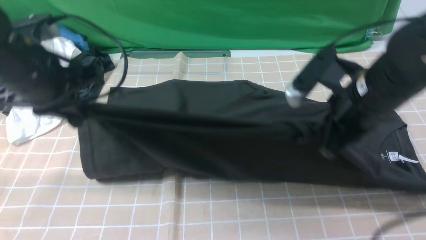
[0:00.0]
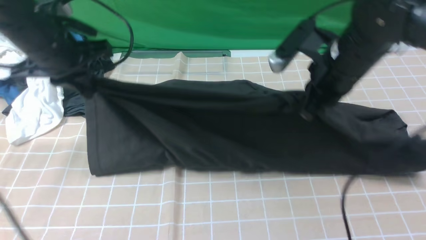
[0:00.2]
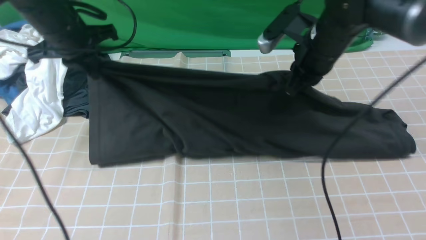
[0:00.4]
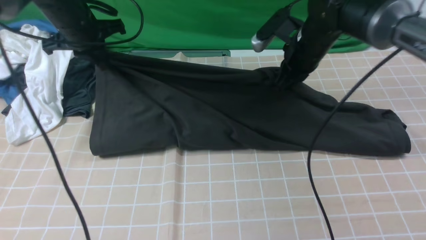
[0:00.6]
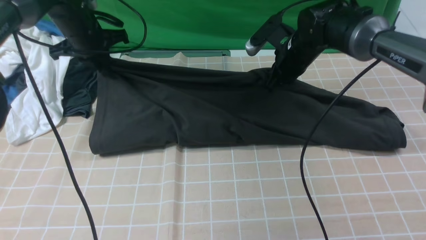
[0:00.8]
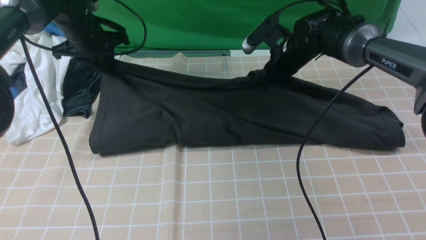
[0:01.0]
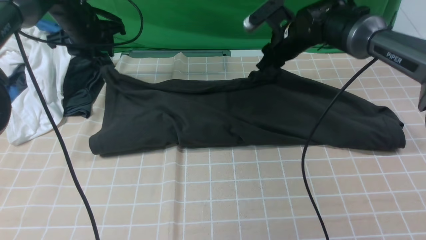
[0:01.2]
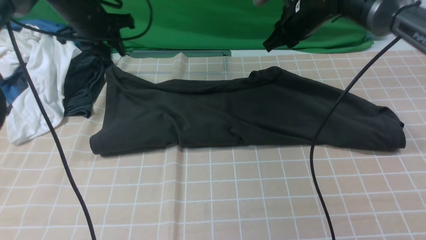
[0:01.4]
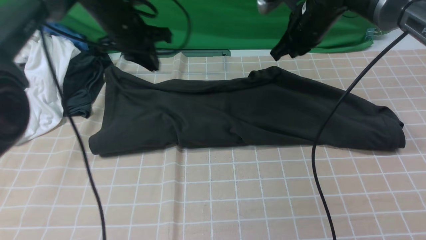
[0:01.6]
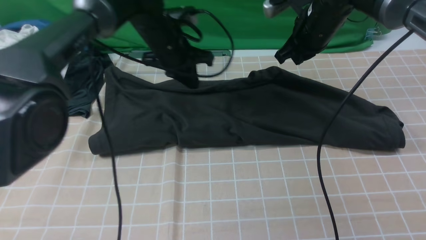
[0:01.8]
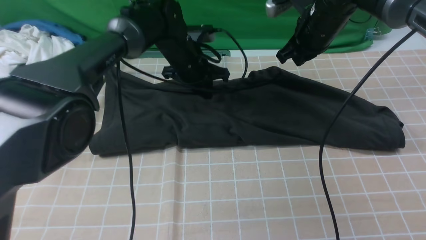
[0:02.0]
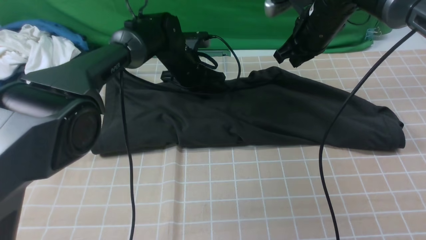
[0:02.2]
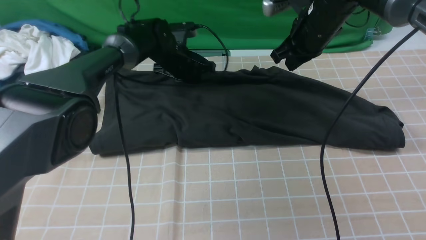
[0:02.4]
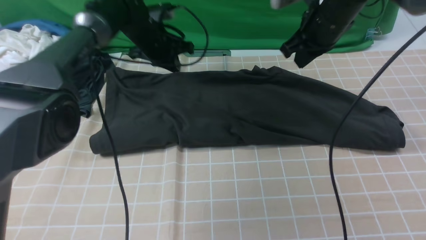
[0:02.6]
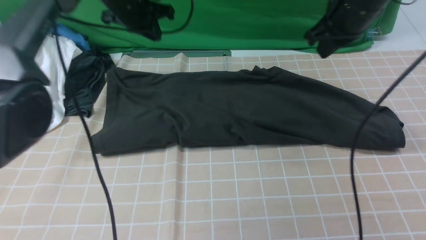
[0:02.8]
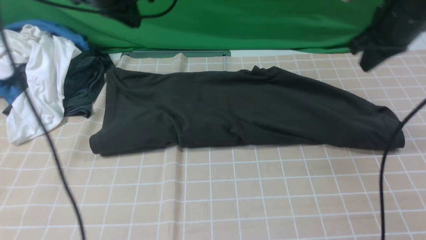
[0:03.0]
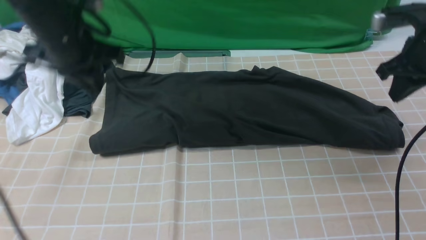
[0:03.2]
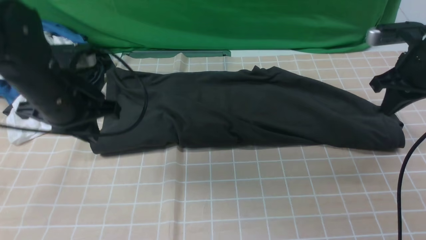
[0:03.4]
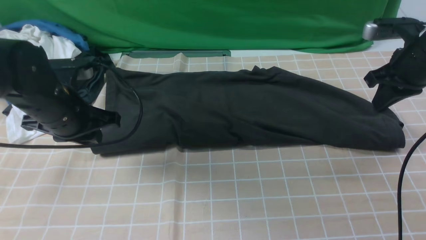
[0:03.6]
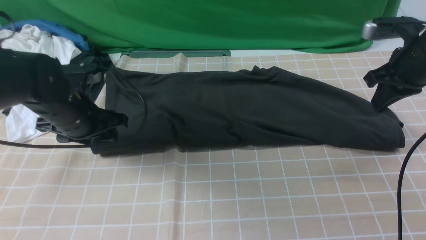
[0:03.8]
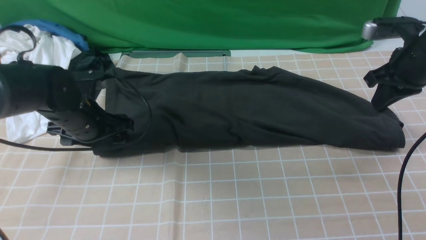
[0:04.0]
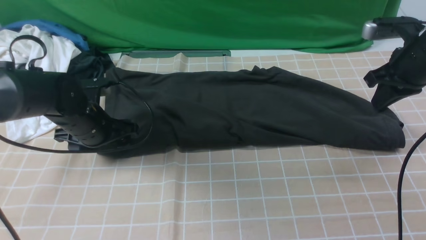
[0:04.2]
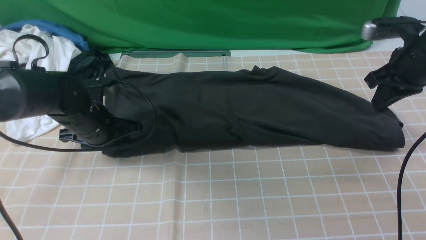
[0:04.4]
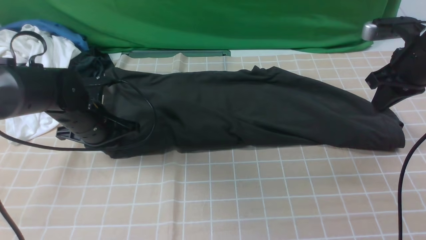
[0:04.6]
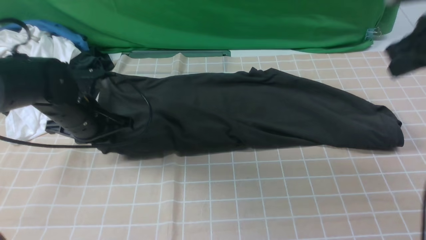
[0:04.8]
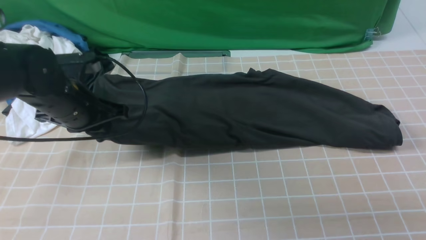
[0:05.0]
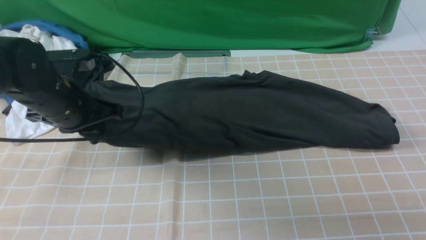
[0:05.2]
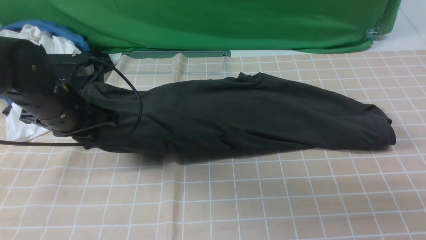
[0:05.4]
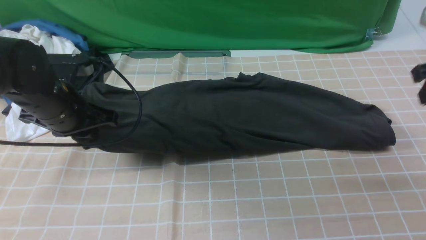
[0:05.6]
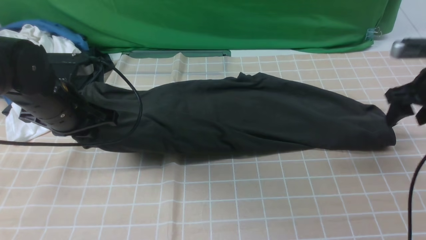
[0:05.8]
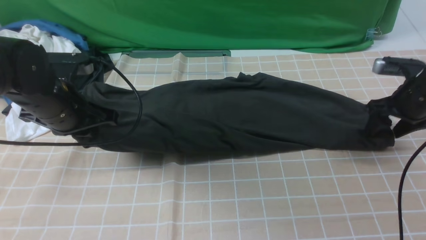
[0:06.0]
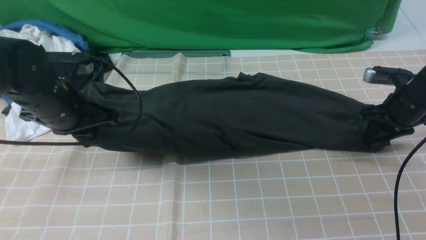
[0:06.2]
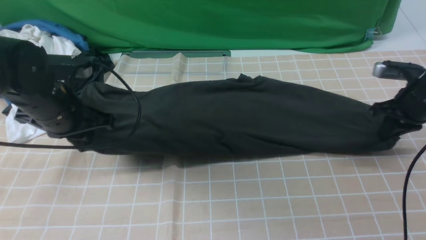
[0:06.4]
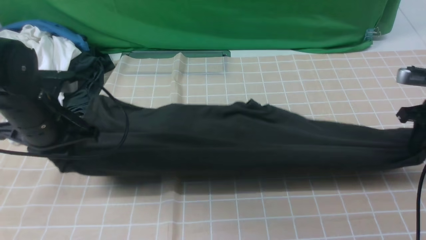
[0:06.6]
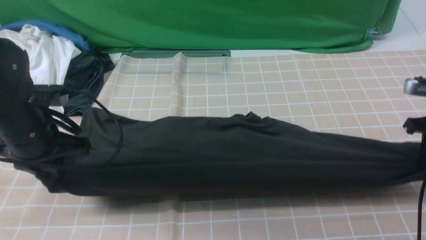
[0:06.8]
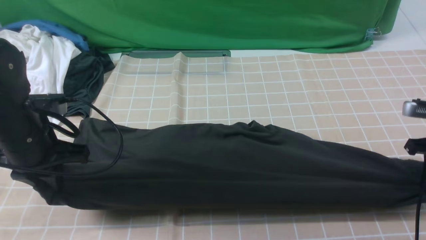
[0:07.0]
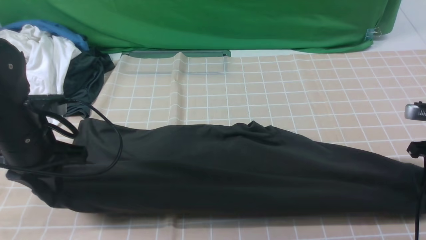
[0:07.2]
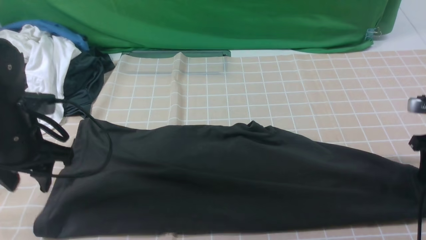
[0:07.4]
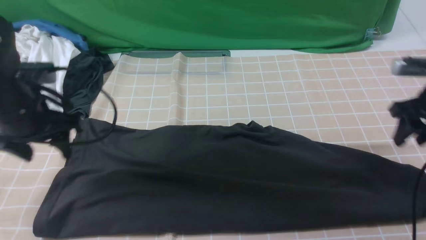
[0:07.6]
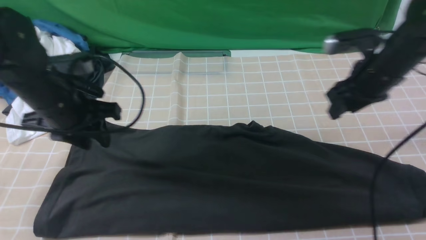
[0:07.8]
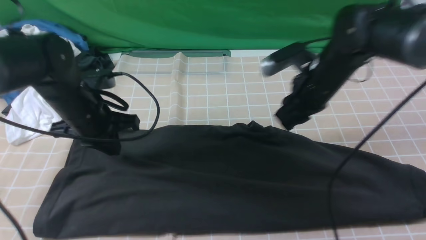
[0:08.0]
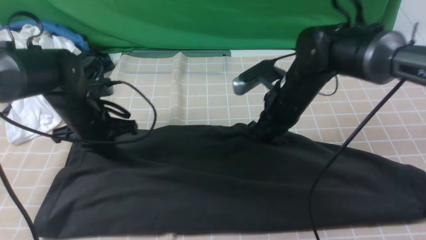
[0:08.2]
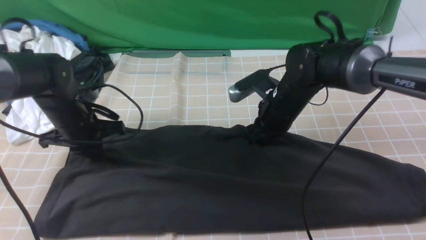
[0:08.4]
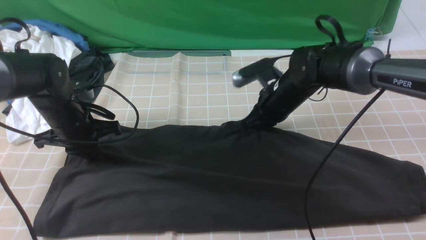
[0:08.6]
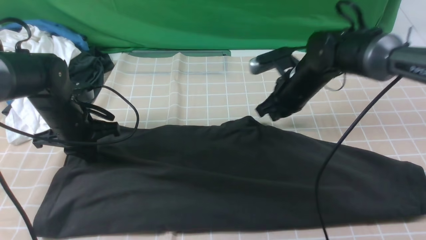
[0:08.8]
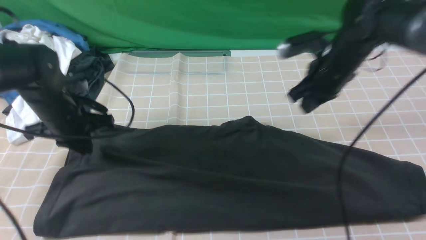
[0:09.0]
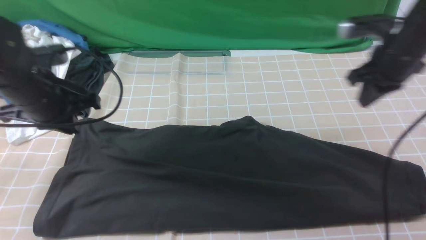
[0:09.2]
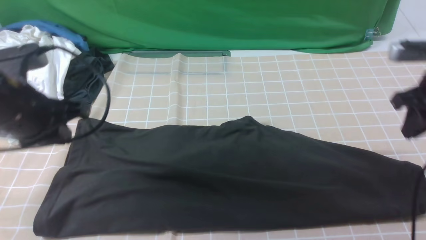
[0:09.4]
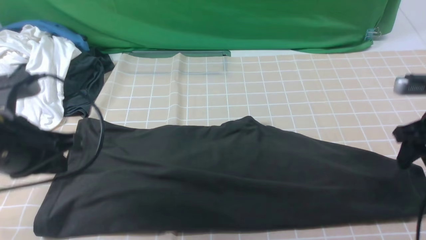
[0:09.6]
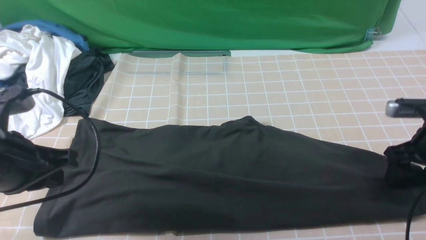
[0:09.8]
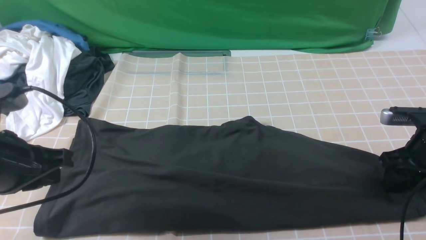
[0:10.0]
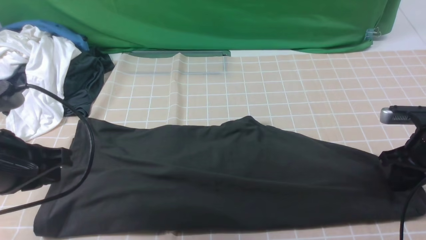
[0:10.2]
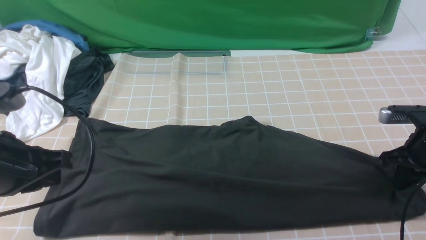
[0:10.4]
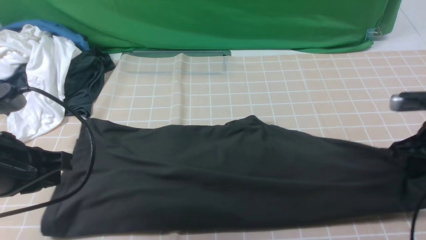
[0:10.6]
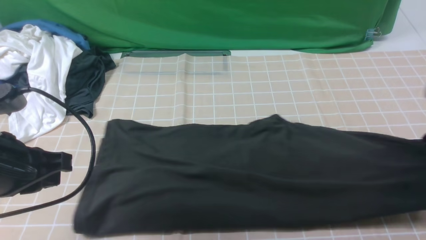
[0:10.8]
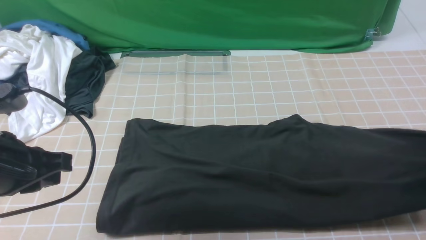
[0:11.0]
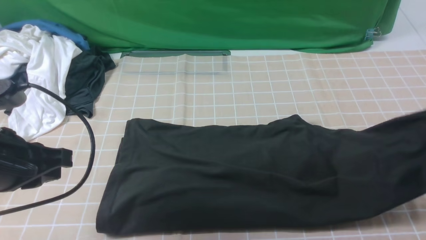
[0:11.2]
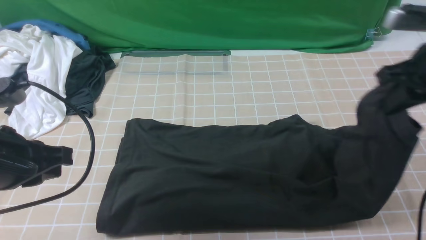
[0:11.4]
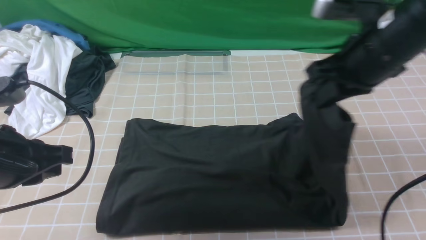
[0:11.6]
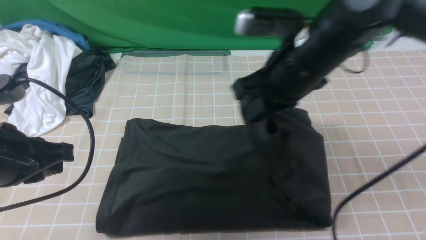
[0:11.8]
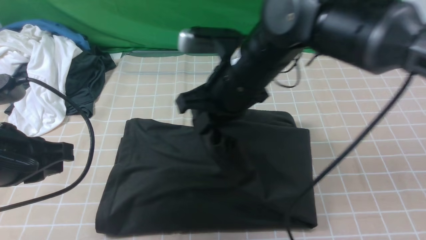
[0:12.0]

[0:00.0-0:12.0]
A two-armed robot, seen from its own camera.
Step, 0:00.0 to 0:02.6: use both arms to drag the lower edge of the fabric forward and fold it over the upper edge.
Step, 0:02.8 to 0:10.2: use the right arm to clamp the right edge of the fabric.
0:00.0 to 0:01.6: The right gripper moves forward, approximately 20 cm, and opens and closes again. Meanwhile the left gripper heads forward and to the right, covering about 20 cm, and opens, then closes once more.
0:01.6 to 0:03.0: The right gripper goes roughly 15 cm to the right and backward; the left gripper heads upward, covering about 10 cm.
0:03.0 to 0:04.4: The left gripper shifts approximately 20 cm downward and backward, and opens its fingers. Meanwhile the right gripper ends up some 5 cm from where it was.
0:04.4 to 0:06.0: The right gripper goes approximately 10 cm downward, and opens up, while the left gripper travels upward by about 10 cm, and closes up.
0:06.0 to 0:07.6: The right gripper shifts by approximately 5 cm, and closes, then reopens; the left gripper opens up.
0:07.6 to 0:09.0: The right gripper is displaced to the left and forward by roughly 10 cm, and closes. Meanwhile the left gripper closes up.
0:09.0 to 0:10.4: The right gripper moves to the right, backward and downward, roughly 15 cm, and opens, then closes once more. The left gripper moves backward and upward, roughly 20 cm.
0:10.4 to 0:12.0: The right gripper moves to the left, approximately 30 cm.

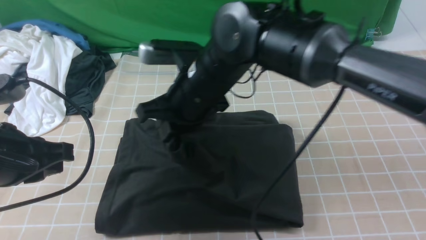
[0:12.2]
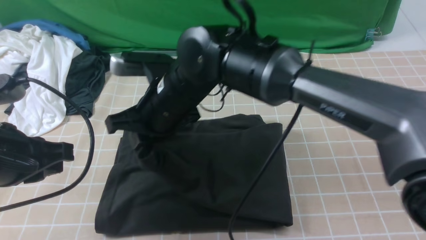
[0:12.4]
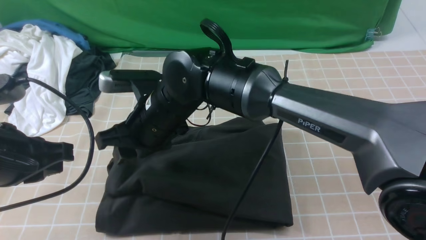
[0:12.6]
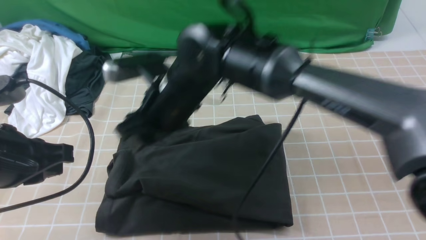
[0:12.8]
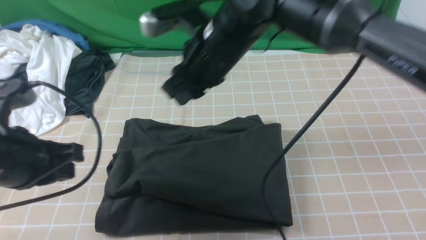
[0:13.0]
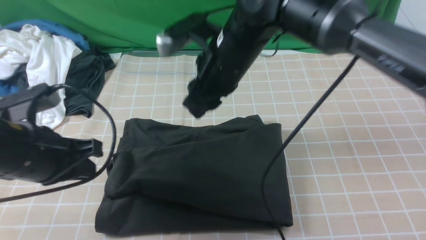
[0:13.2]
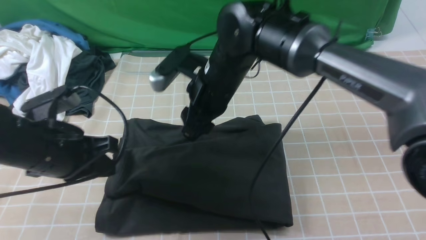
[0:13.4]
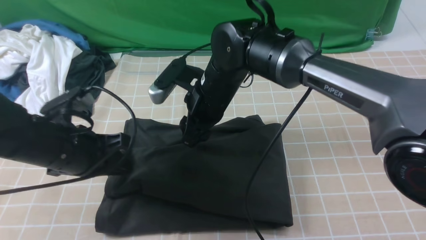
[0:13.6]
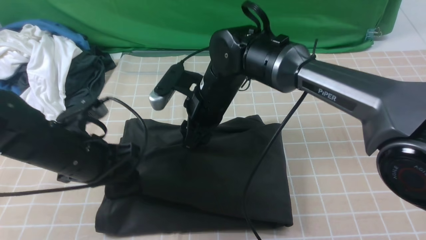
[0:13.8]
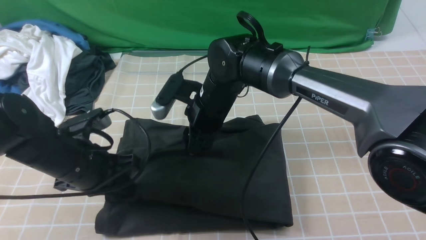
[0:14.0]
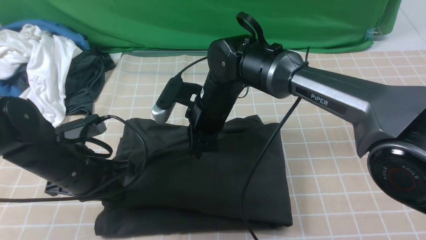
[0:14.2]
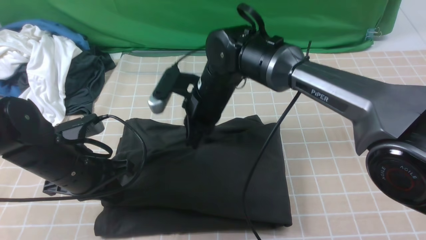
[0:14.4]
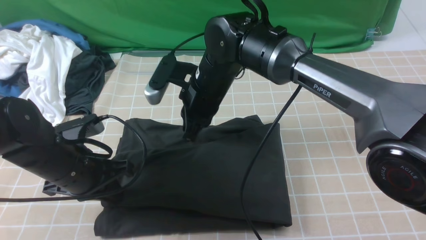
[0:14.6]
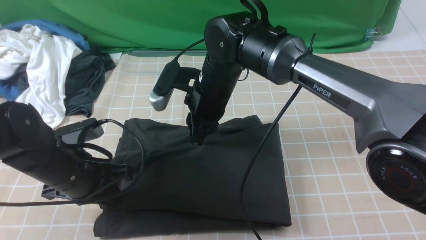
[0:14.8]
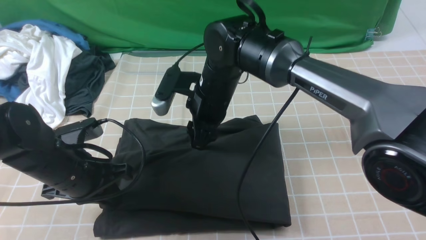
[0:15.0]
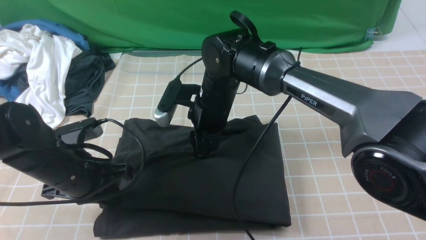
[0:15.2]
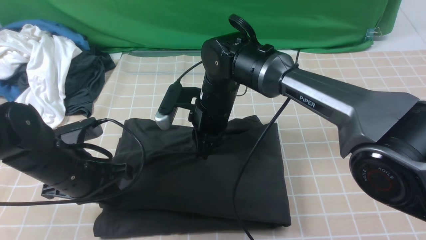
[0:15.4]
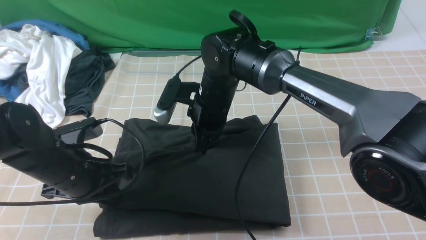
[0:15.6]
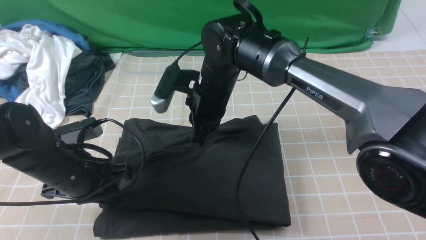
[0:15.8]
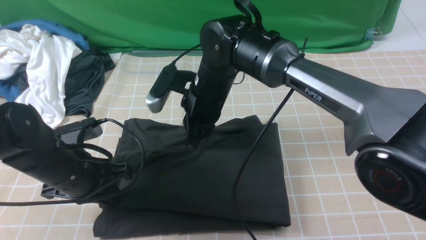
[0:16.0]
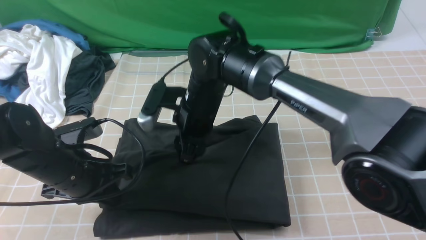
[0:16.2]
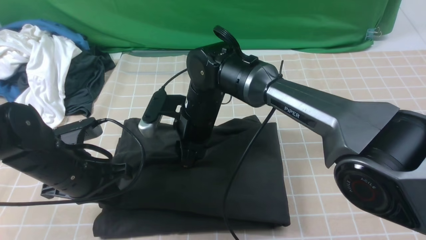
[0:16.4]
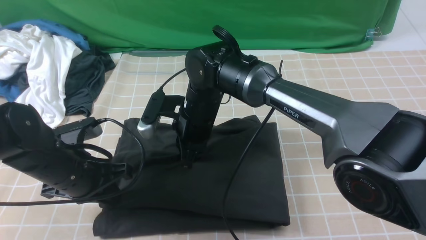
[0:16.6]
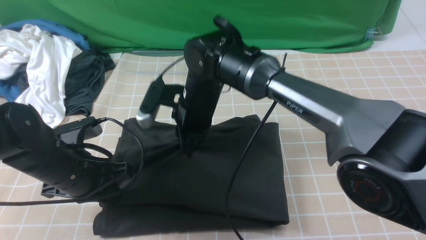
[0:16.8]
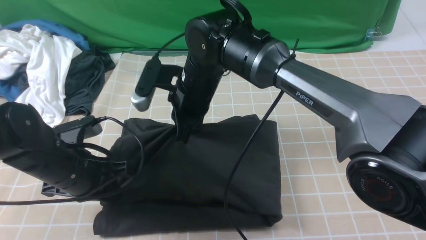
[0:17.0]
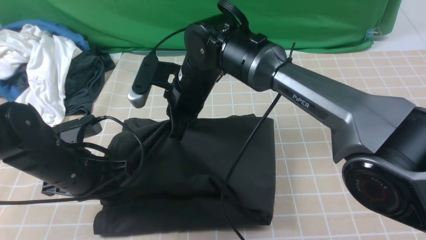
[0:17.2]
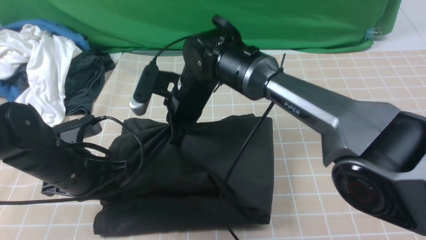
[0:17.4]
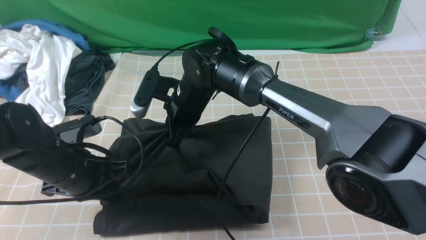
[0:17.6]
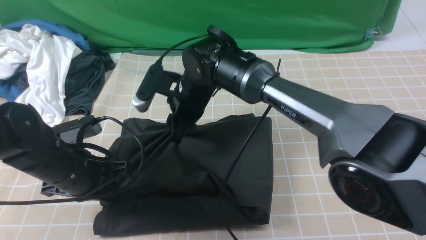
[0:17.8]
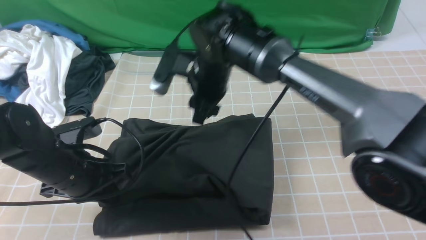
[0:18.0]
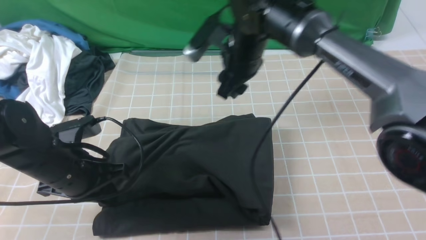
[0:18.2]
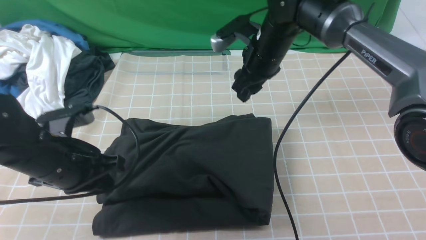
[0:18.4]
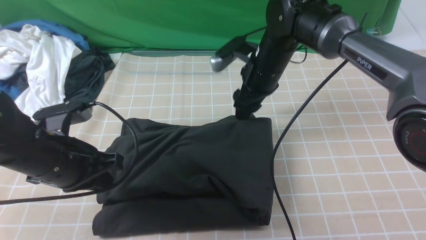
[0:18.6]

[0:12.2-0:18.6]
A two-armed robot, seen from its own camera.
0:12.2 to 0:13.8: The grippers both shift downward and forward by some 10 cm. The right gripper opens.
0:13.8 to 0:15.4: The right gripper closes its fingers.
0:15.4 to 0:17.0: The grippers move only a little.
0:17.0 to 0:18.6: The right gripper heads to the right and forward, covering some 15 cm, and opens its fingers.
